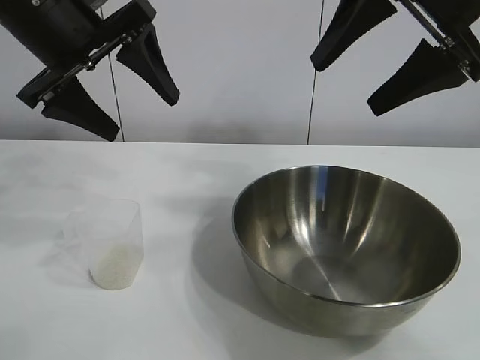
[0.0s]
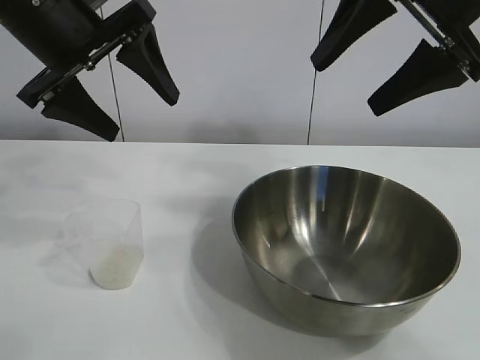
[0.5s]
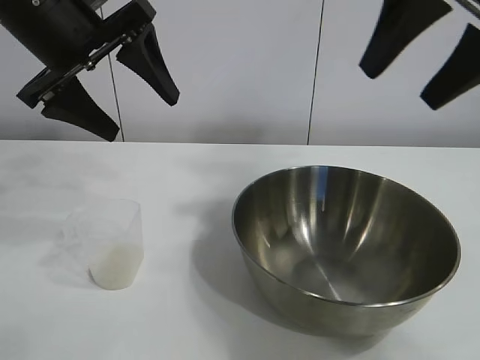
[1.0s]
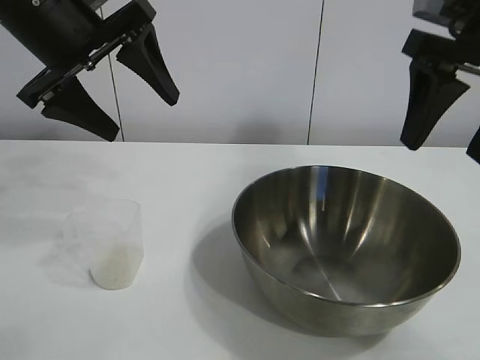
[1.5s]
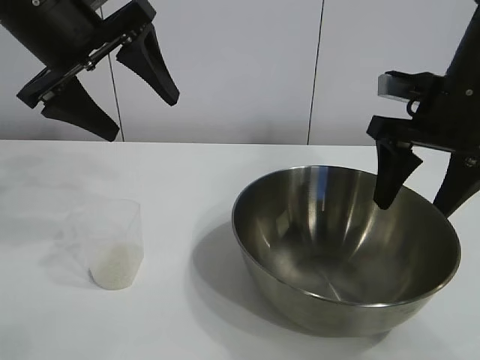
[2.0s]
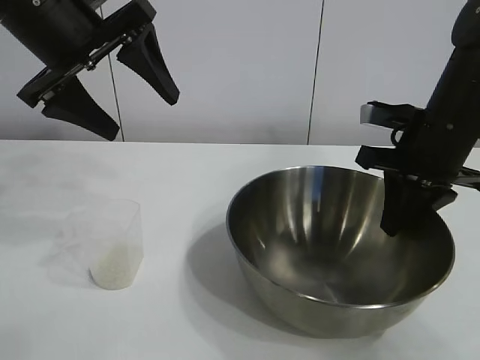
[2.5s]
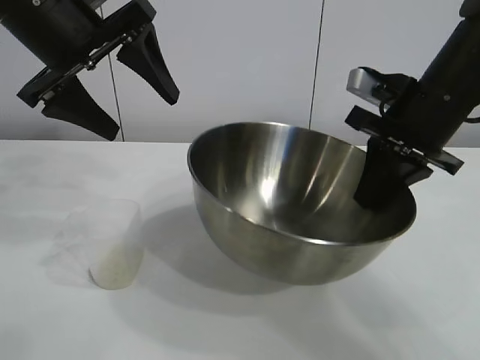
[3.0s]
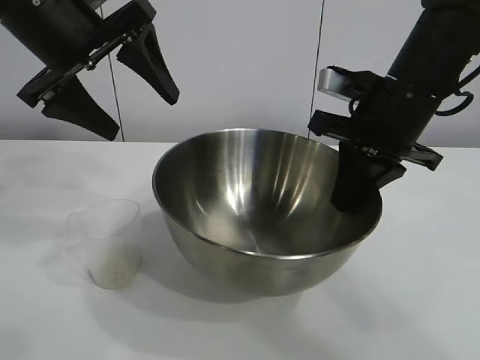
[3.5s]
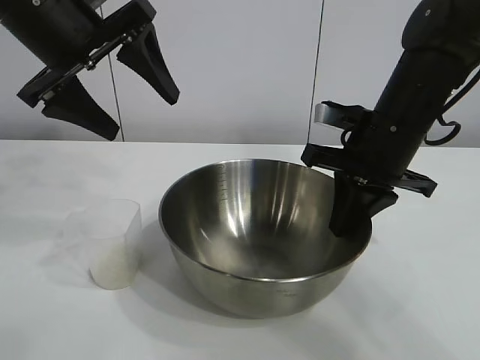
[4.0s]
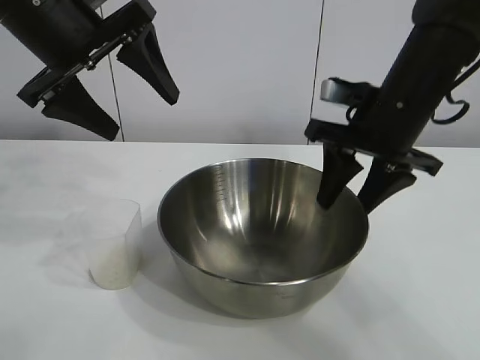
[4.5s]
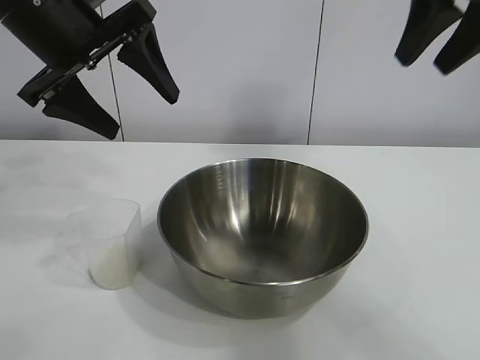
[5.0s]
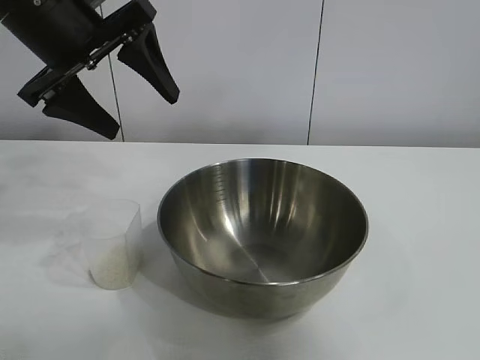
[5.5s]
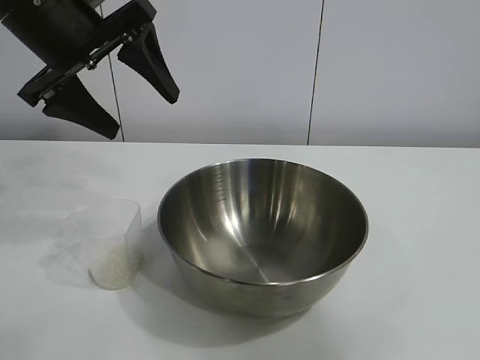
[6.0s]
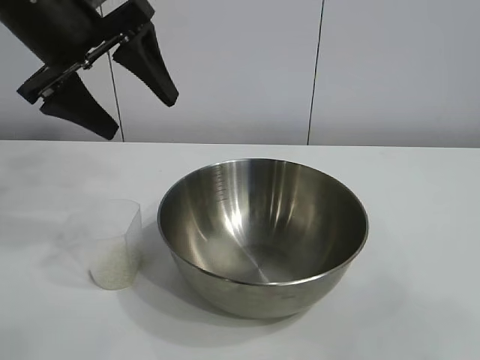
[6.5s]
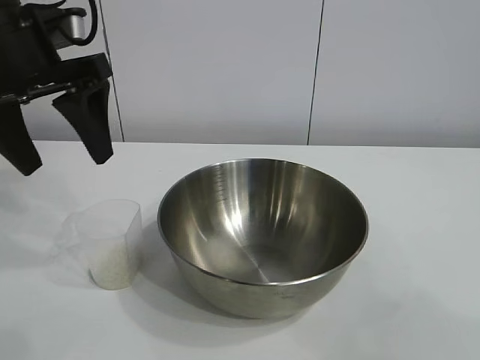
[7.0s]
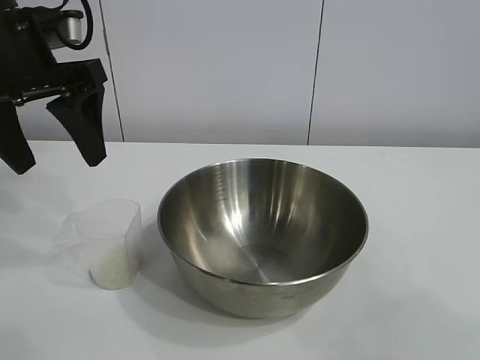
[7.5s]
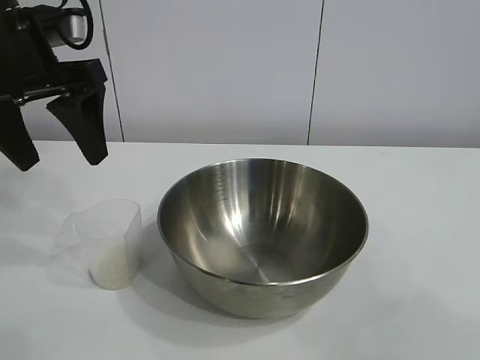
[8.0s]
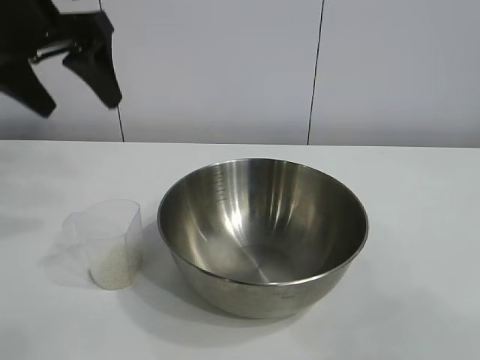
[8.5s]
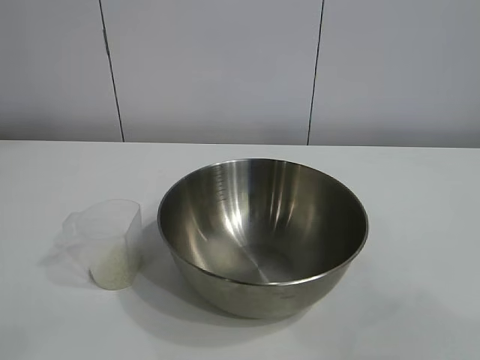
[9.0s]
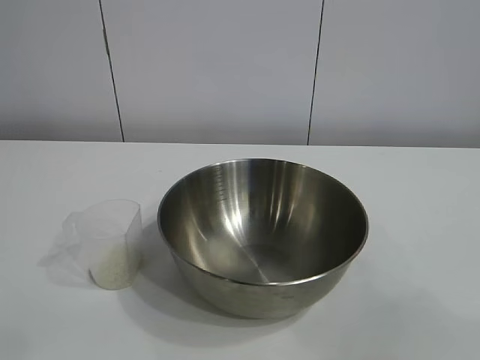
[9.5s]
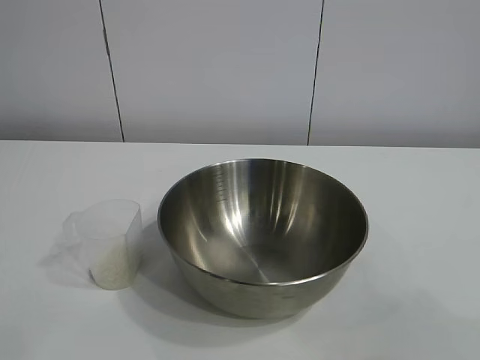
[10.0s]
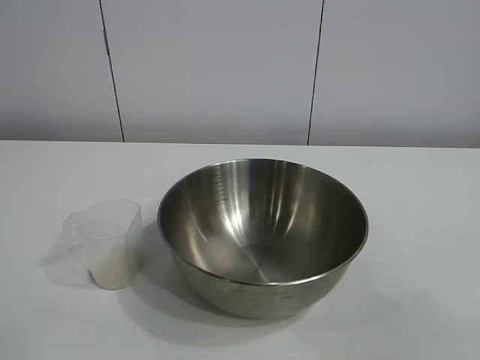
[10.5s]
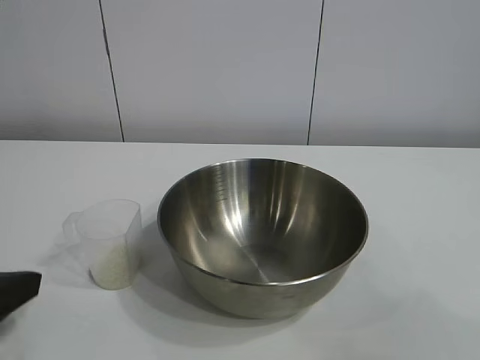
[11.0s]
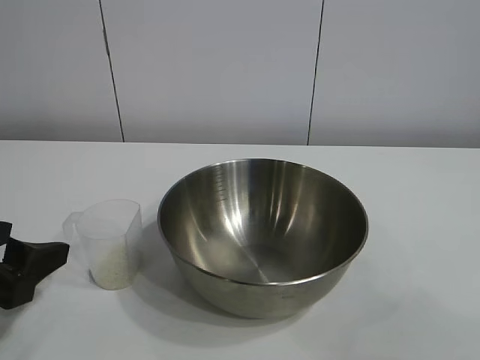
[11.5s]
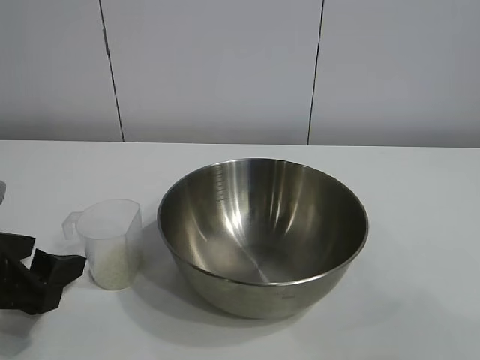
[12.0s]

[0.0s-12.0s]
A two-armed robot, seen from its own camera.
Task of the whole recording: the right gripper grasp the rice container and place it in the center of the table, the left gripper grasp the rice scoop and pour the rice into the rice container.
Step, 1.0s to 4.0s: Move the bowl in the center of view with right gripper.

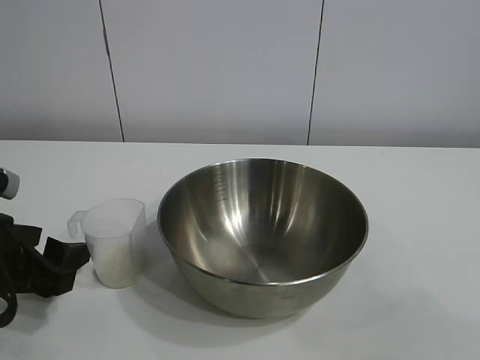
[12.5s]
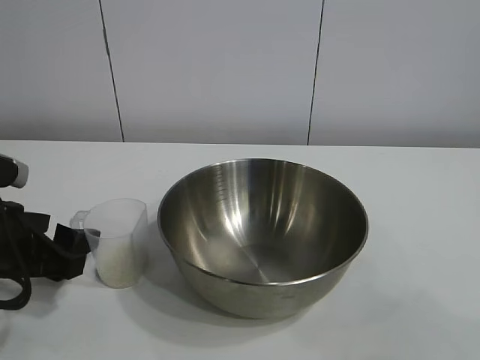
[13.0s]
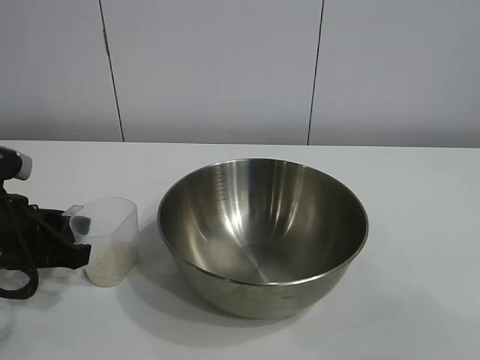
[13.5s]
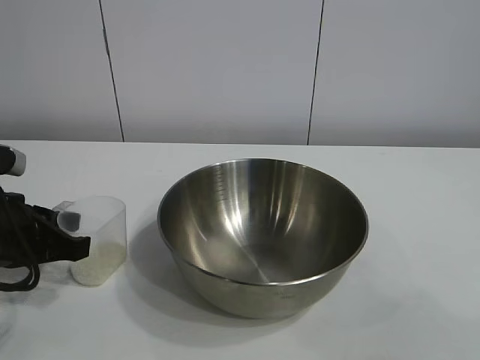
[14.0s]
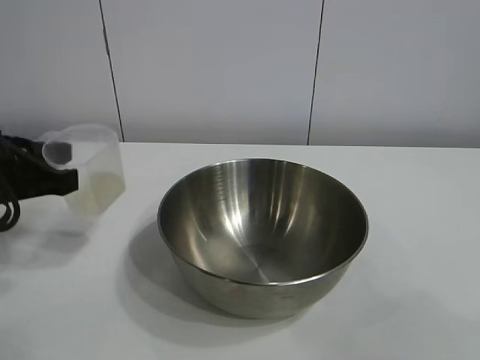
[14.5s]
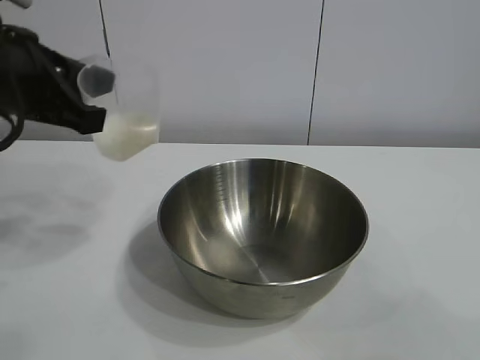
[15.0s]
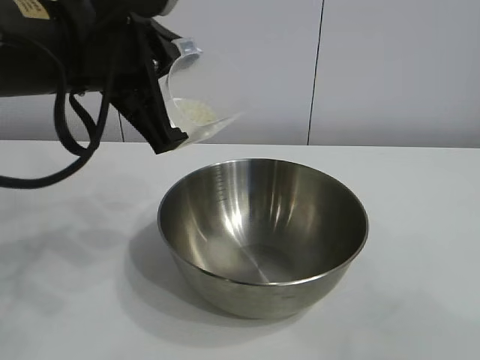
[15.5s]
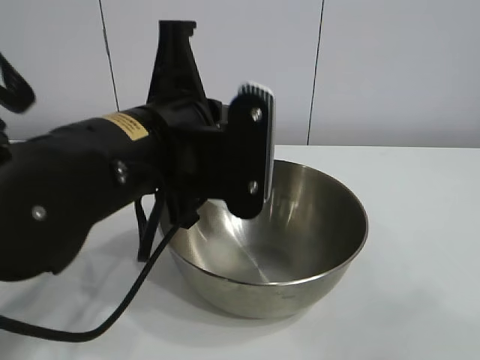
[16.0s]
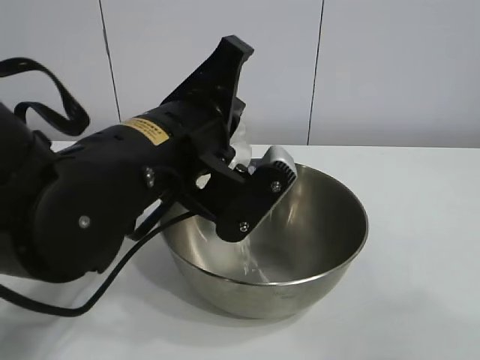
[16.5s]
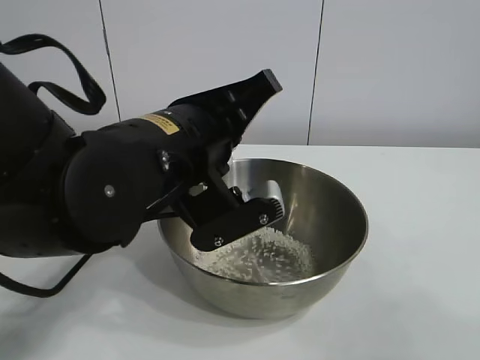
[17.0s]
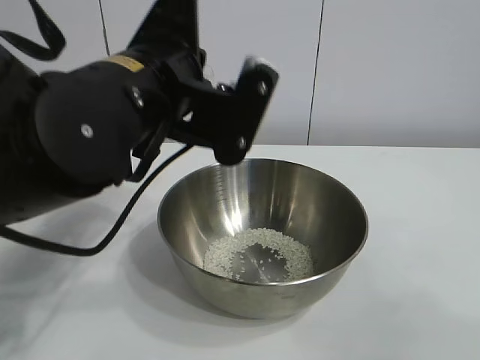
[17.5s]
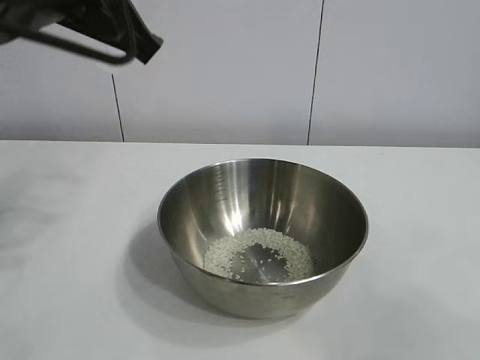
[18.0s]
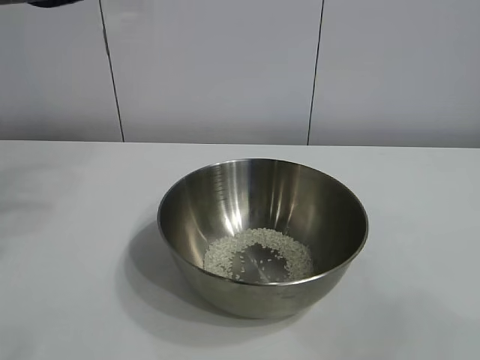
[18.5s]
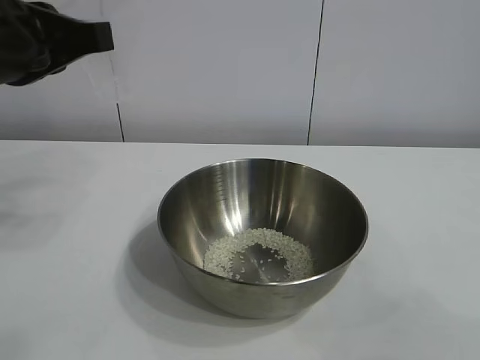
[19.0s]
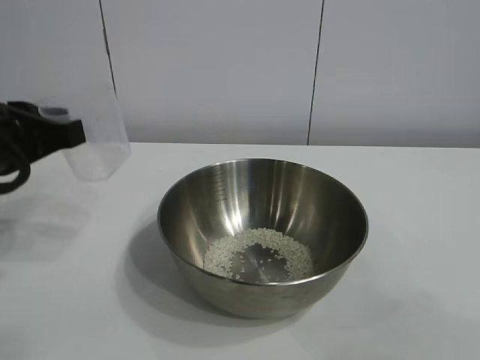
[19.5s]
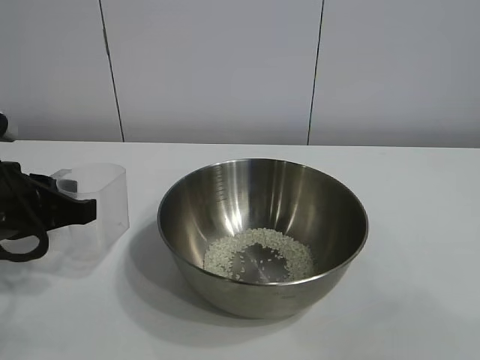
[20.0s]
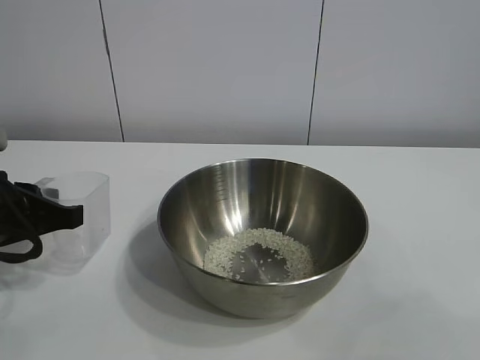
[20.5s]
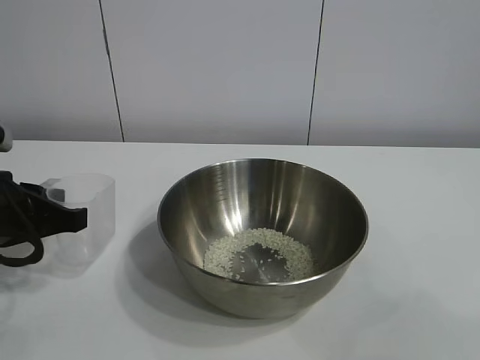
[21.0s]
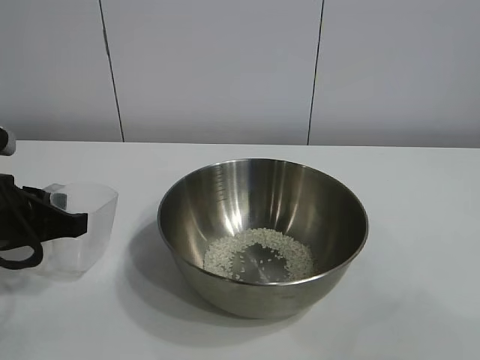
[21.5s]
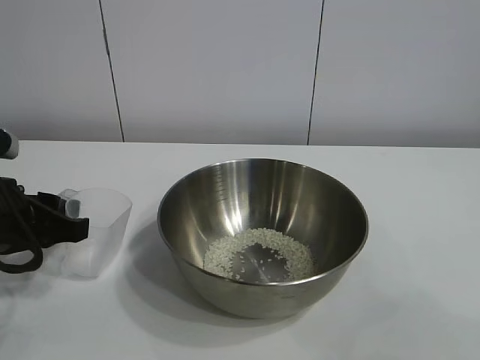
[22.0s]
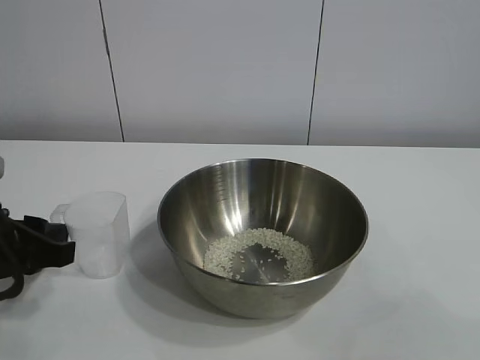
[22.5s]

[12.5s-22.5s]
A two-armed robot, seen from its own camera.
Task of the whole recording: the right gripper grasp the rice container and place it in the center of the table, the left gripper grasp the rice scoop and pour the rice into the rice container.
Step, 14.0s to 17.0s: Pour the rice from the cup into the bowl with the left gripper.
